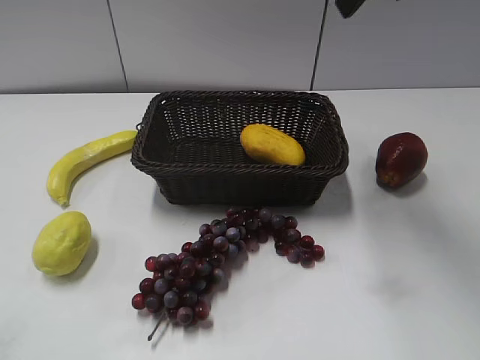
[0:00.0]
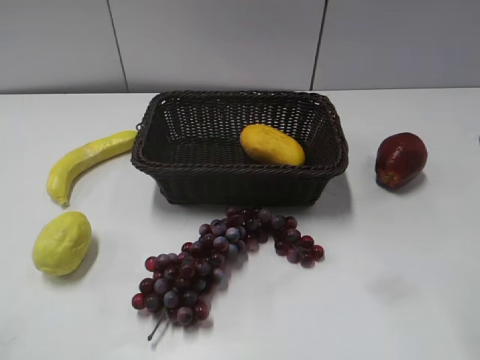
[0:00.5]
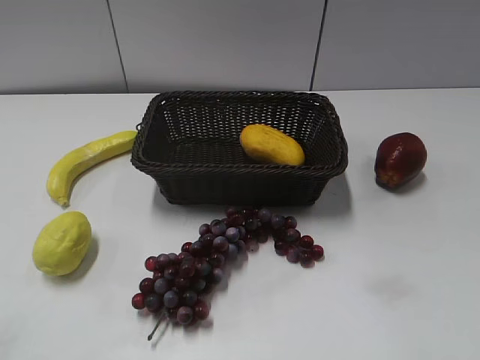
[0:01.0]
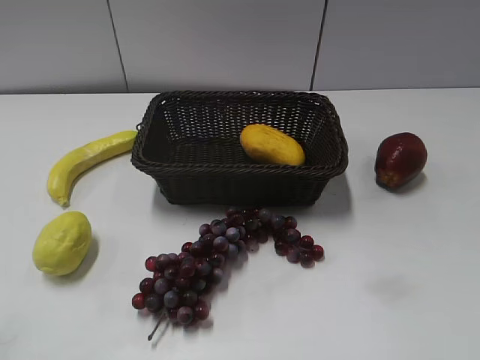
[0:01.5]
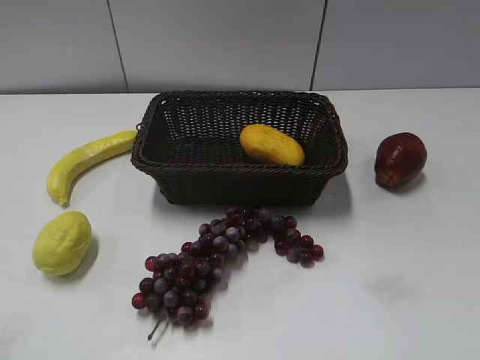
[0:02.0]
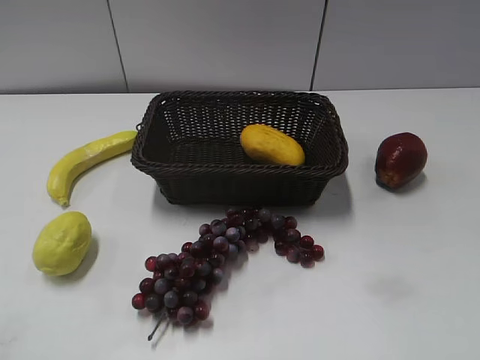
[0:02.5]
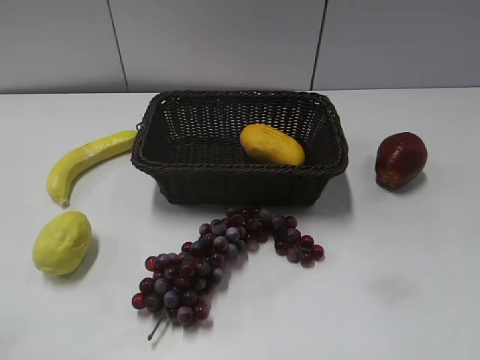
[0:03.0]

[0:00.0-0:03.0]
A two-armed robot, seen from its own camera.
0:00.0 to 0:01.5: The right gripper shifts some 35 cm backward and to the right, and closes its fingers.

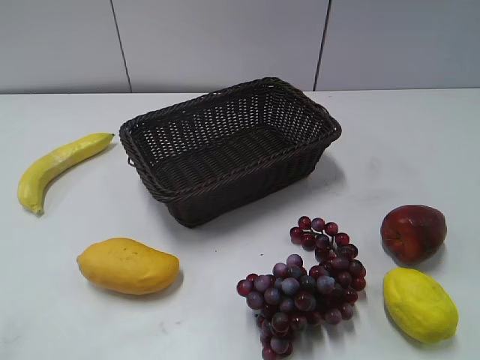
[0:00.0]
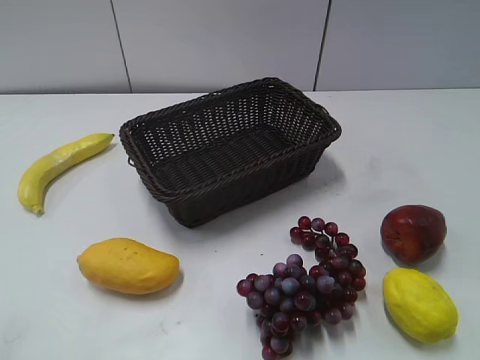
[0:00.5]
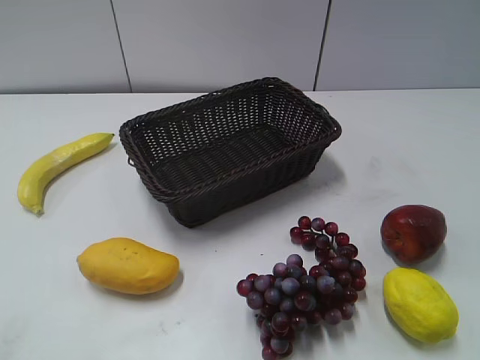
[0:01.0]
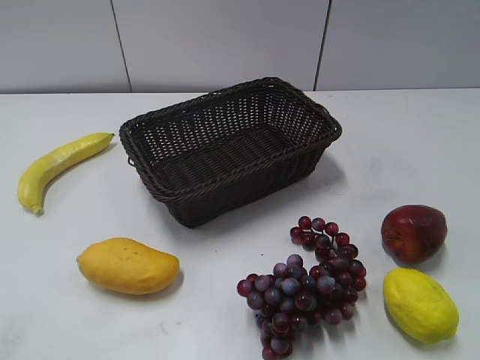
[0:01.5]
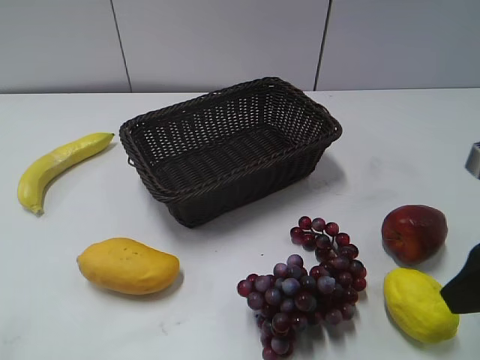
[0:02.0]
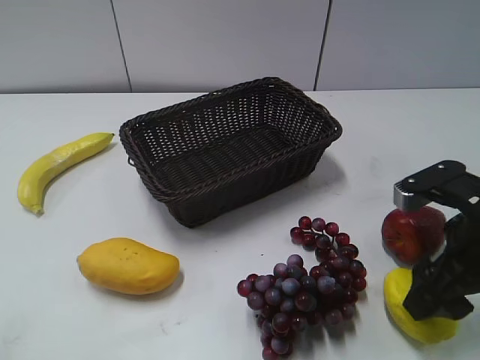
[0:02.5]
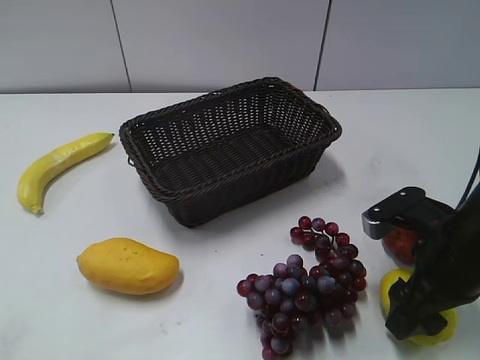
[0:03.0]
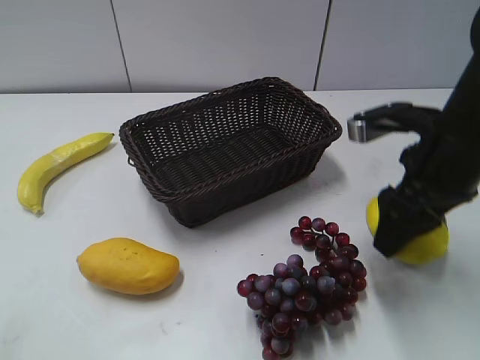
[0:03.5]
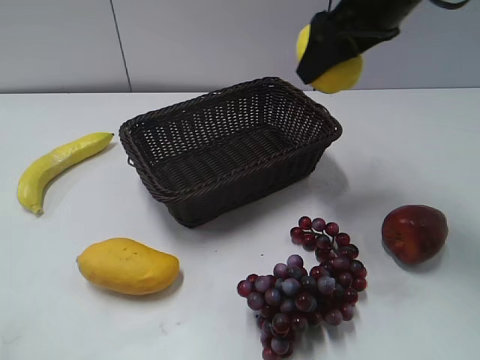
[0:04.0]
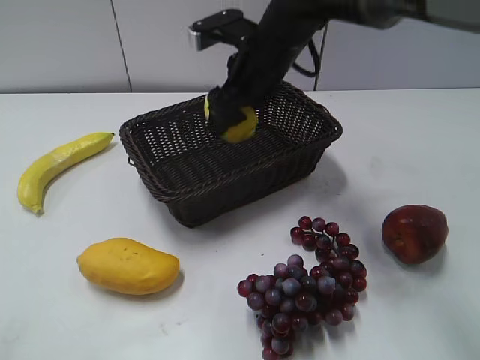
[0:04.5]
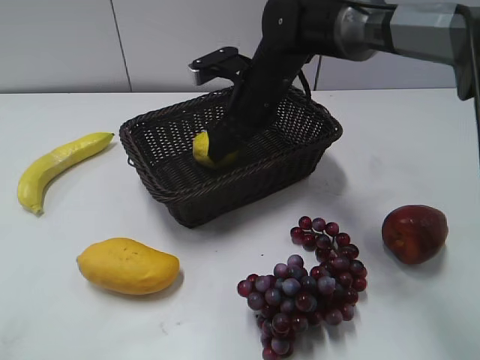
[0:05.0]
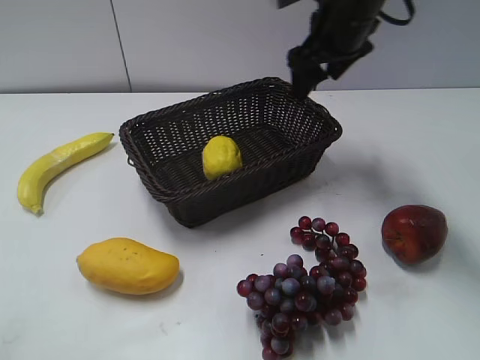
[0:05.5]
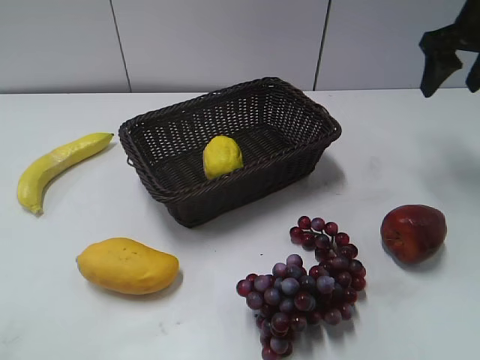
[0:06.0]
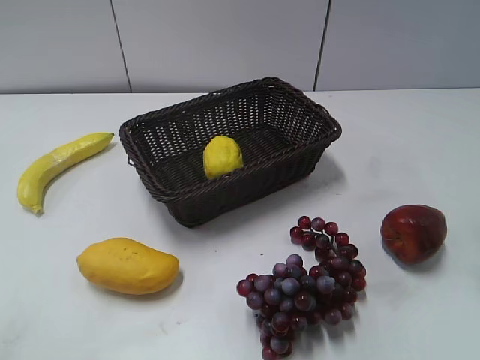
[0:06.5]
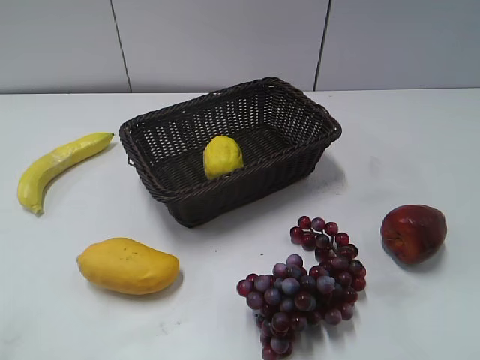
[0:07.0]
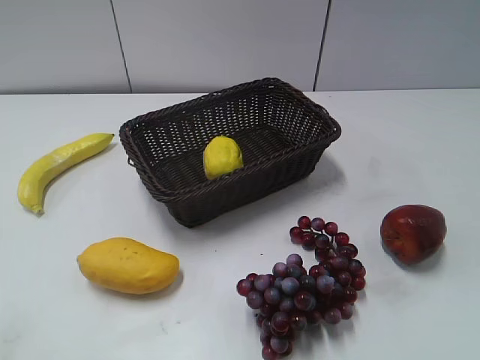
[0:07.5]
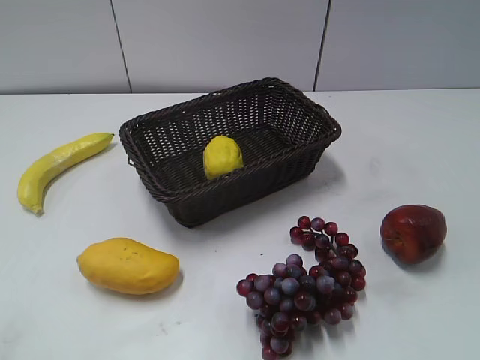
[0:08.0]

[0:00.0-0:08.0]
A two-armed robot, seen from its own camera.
Step, 0:02.0 to 0:03.0: Grasp the lemon with right gripper.
Step, 0:03.5 to 0:05.0: Place the lemon in the basket with right gripper.
0:02.0 to 0:04.0: The right gripper shifts some 25 cm forward, to the left and upward, and closes.
0:04.0 to 0:06.0: The right gripper travels to the right by about 15 cm, and opens and closes again.
0:06.0 to 0:08.0: The right gripper moves backward, some 40 cm.
